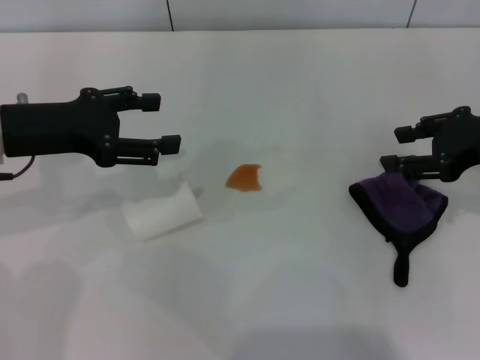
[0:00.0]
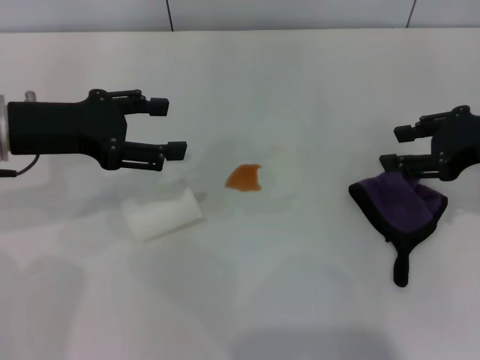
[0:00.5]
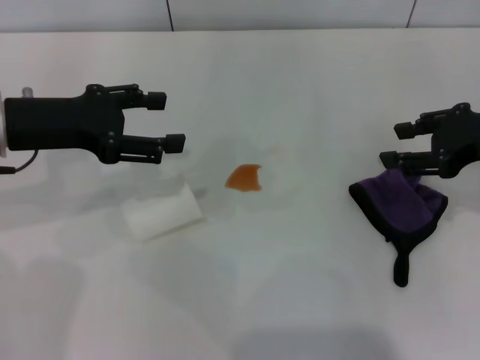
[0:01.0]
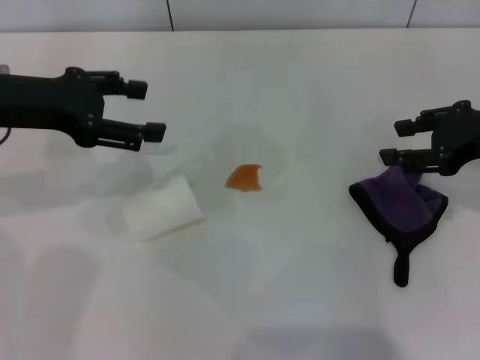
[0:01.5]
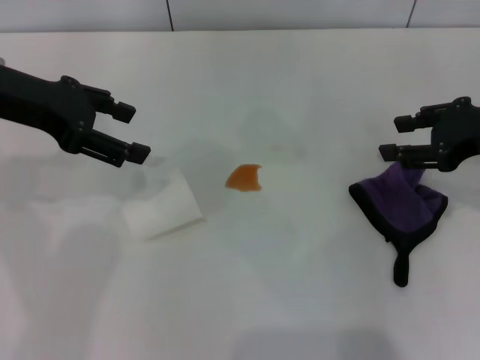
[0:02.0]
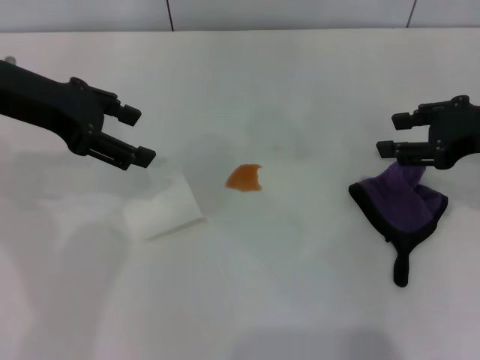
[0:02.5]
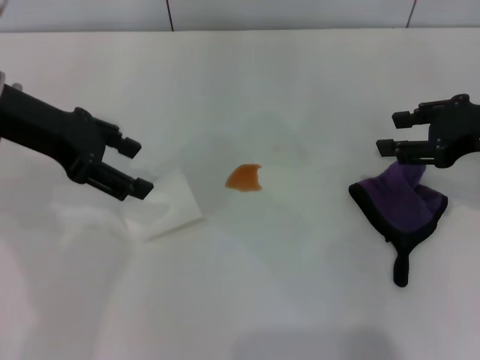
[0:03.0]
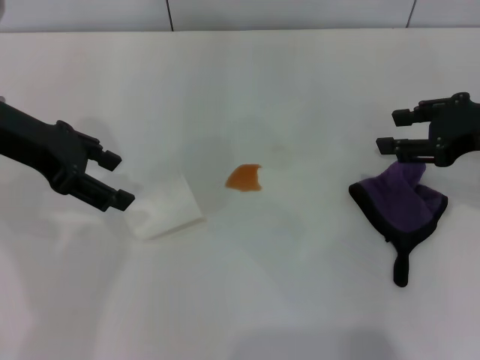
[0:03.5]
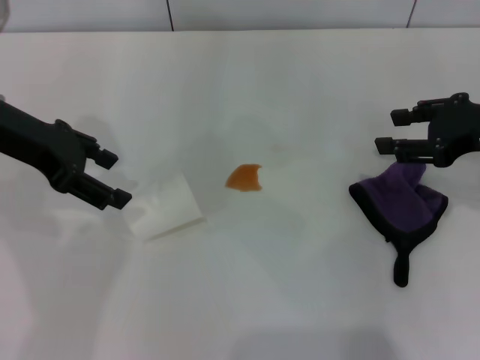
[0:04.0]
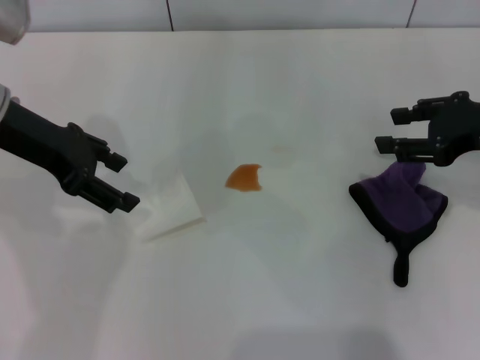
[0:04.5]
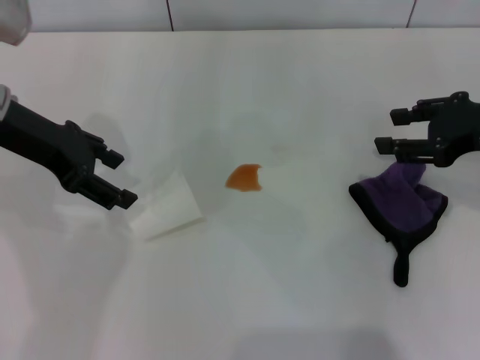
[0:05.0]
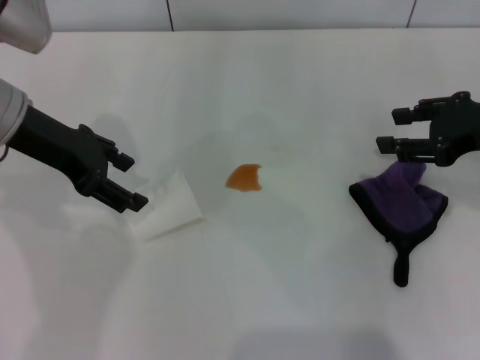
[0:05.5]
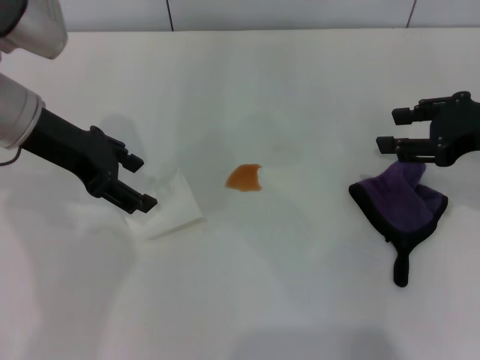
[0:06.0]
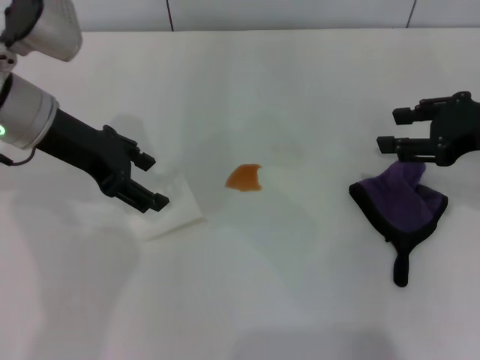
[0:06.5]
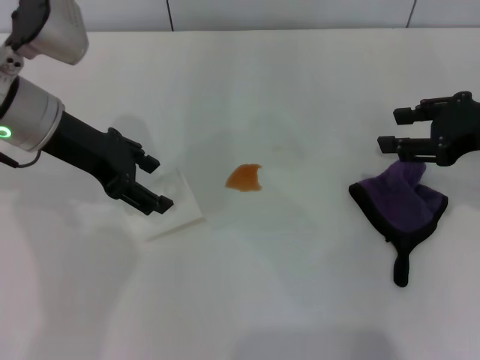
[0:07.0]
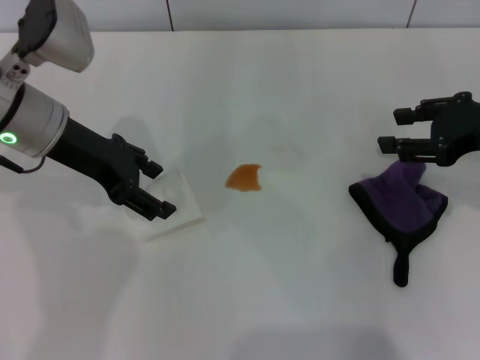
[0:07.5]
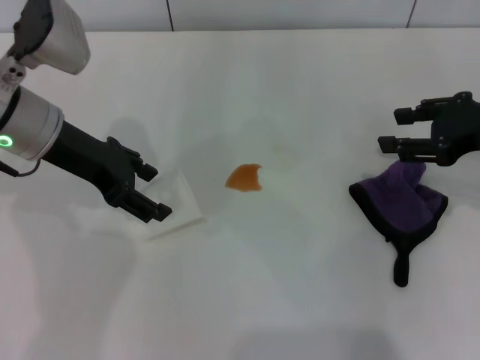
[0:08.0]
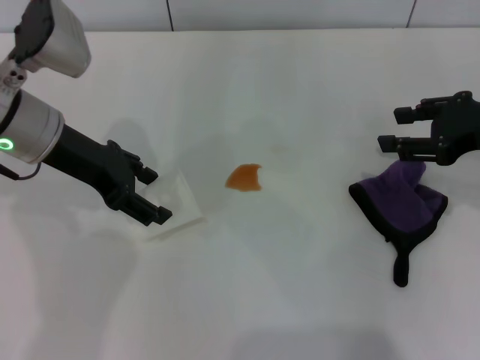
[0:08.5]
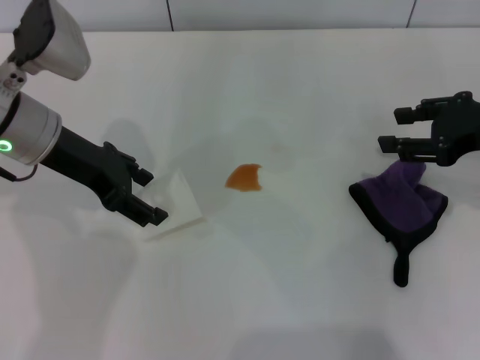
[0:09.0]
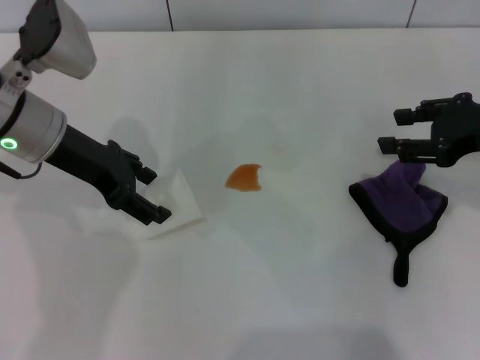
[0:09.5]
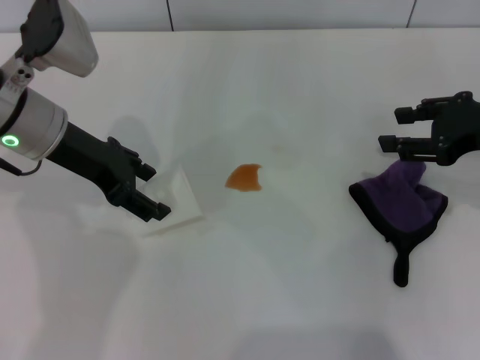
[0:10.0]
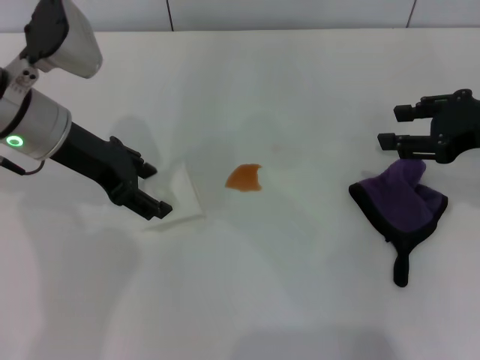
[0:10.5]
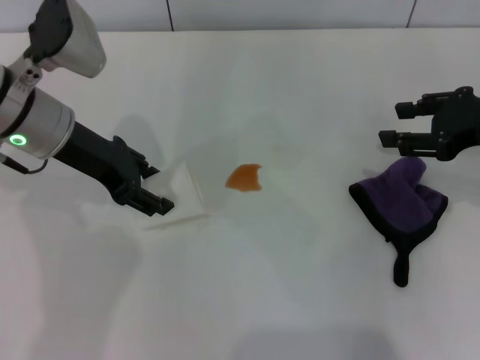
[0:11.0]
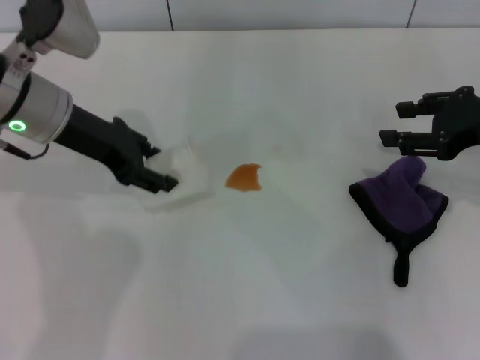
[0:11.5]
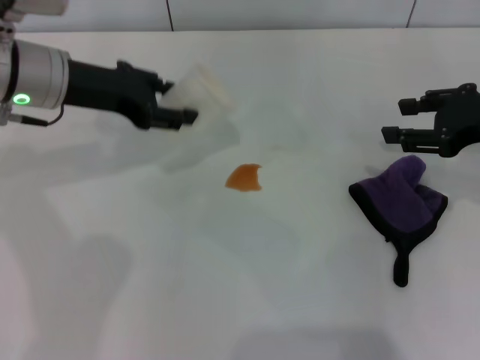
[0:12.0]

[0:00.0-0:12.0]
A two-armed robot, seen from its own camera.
Step, 0:00.0 to 0:10.5: Grasp the paper cup with the left gripper.
0:00.0 to 0:02.0: The left gripper goes approximately 5 cm upward.
0:02.0 to 0:06.0: There are only small adjustments of the grippers.
0:06.0 to 0:08.0: The grippers move only a little.
0:08.0 to 0:10.0: Both grippers stay about where they are.
0:10.0 to 0:12.0: The left gripper closes up.

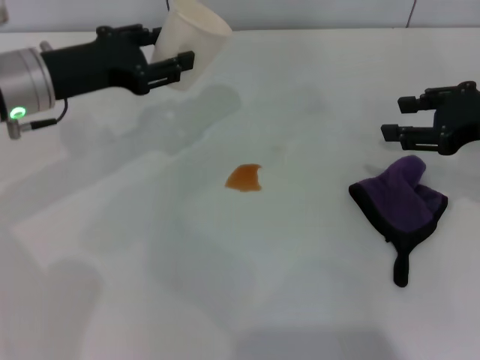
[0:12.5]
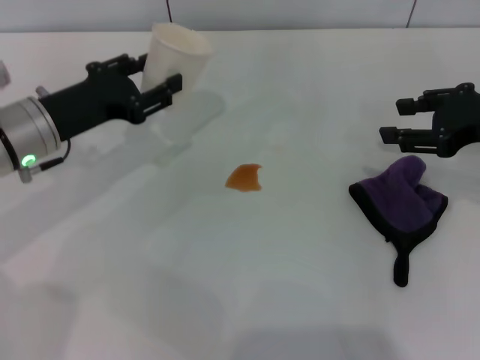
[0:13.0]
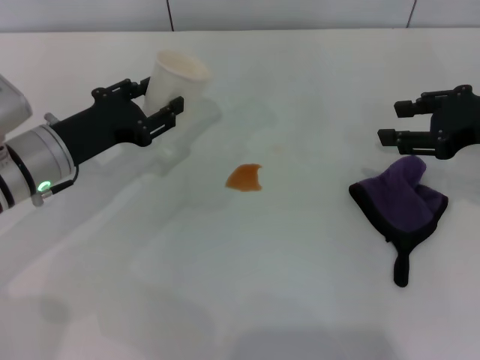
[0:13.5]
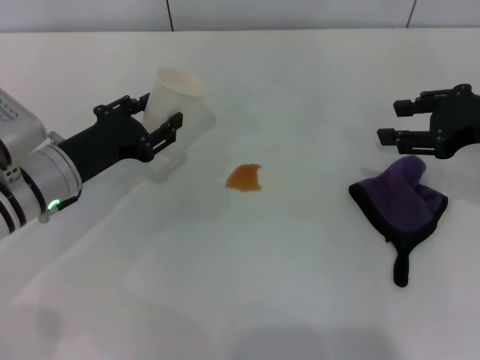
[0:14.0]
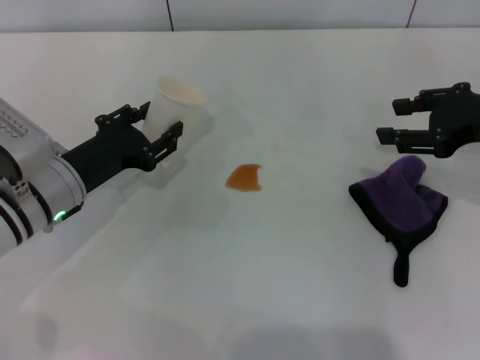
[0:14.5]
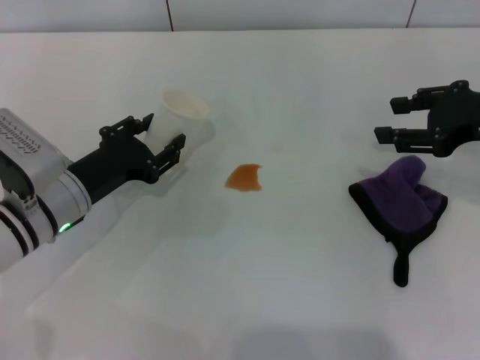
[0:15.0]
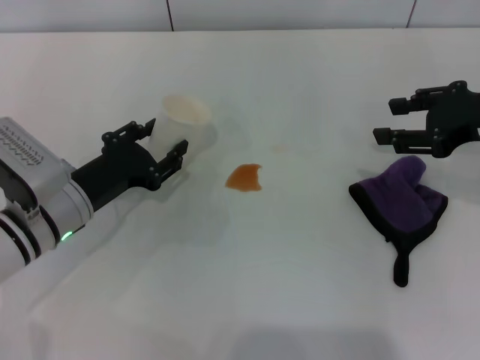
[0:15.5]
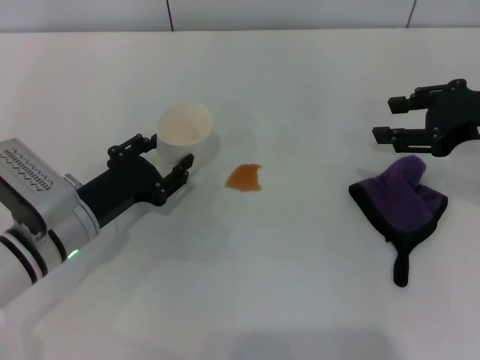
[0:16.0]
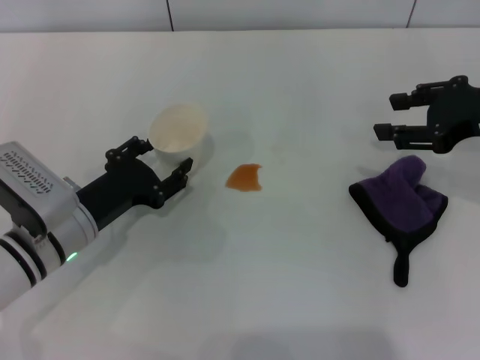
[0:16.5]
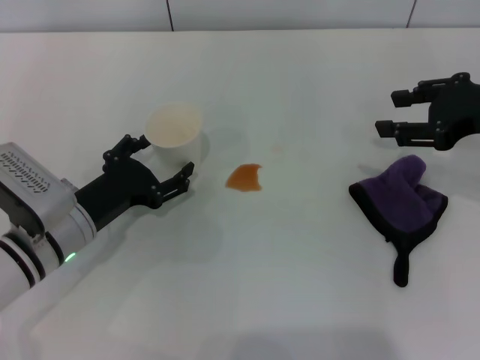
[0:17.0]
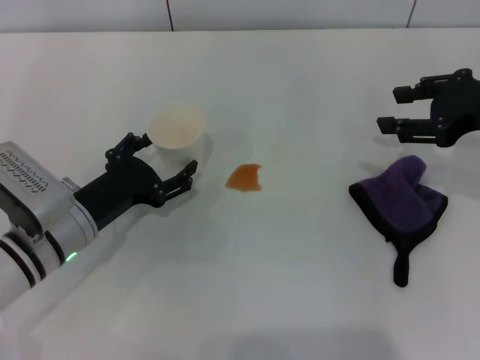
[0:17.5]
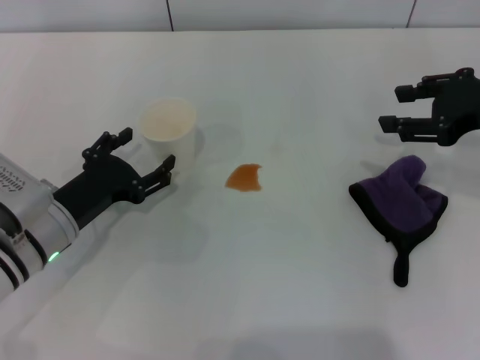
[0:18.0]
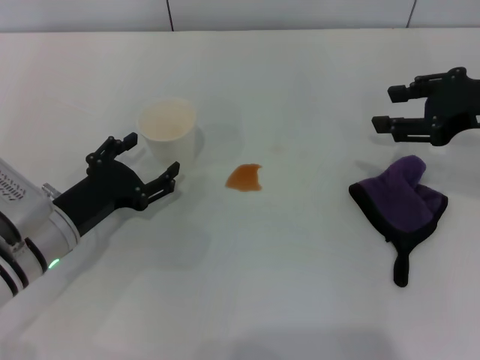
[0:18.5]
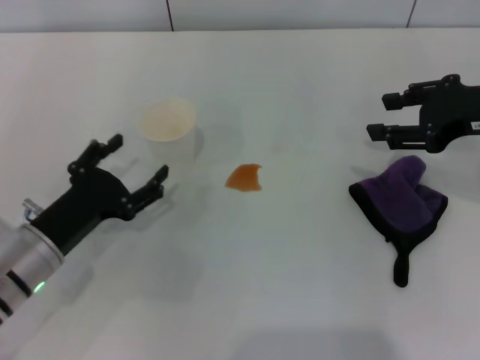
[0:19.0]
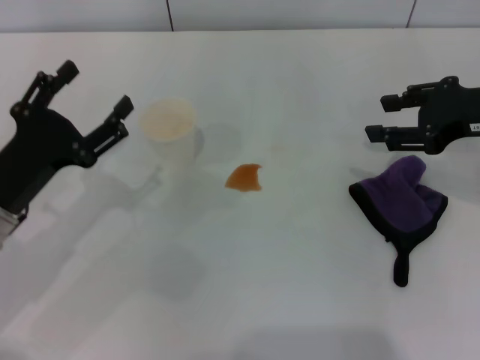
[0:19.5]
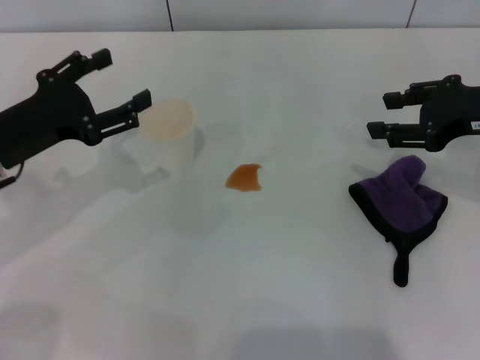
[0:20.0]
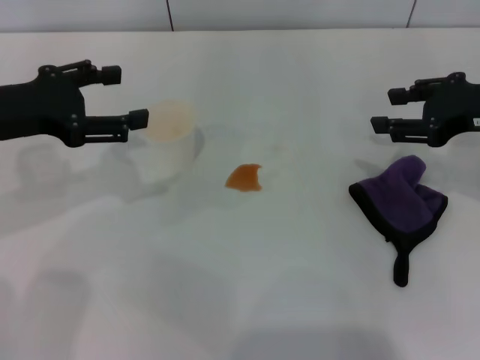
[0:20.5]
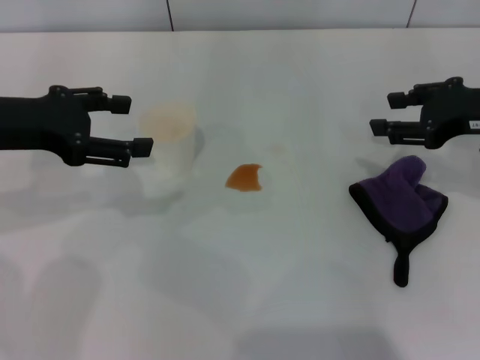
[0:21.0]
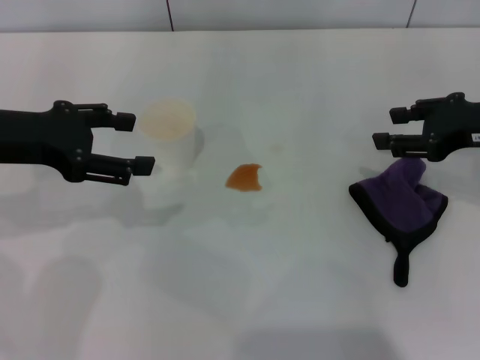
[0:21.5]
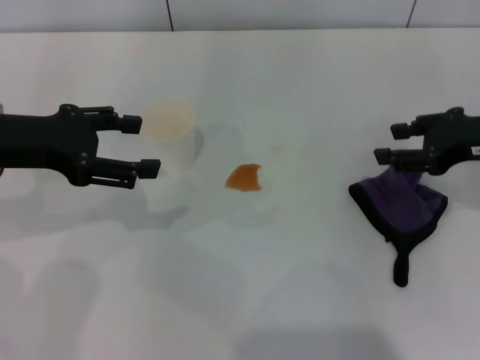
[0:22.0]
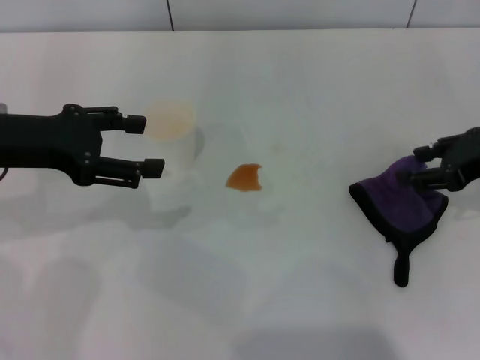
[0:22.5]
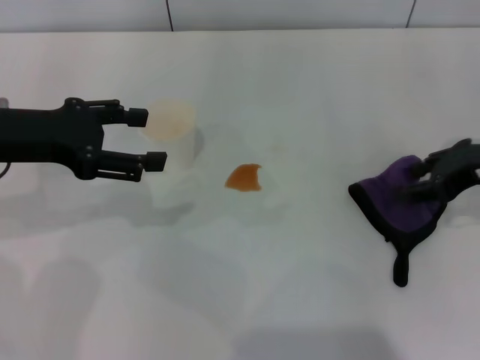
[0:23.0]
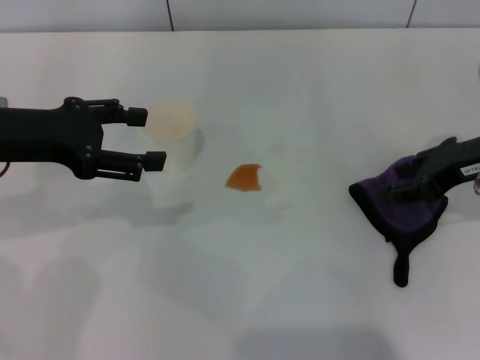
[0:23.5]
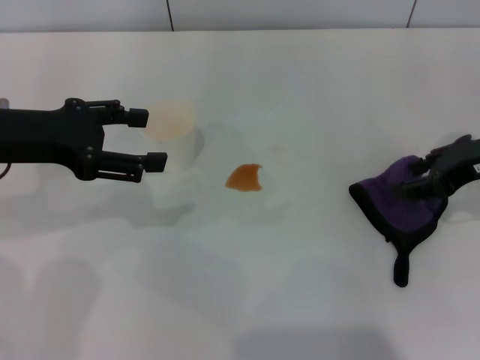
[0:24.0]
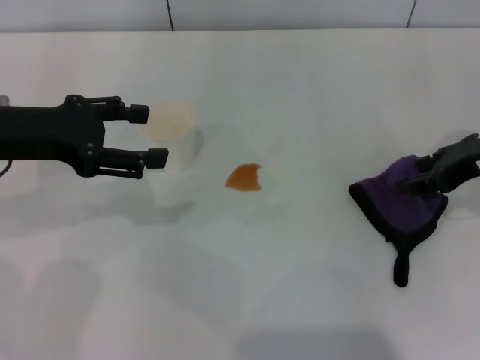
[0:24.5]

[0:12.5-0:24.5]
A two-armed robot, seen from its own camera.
Step, 0:12.5 to 0:18.5: Stand the paper cup upright with the left gripper.
0:12.5 to 0:14.5: The left gripper heads downward and backward, covering about 10 cm.
0:14.5 to 0:16.5: The grippers move only a little.
0:16.5 to 0:18.5: The left gripper opens up.
0:18.5 to 0:20.5: The left gripper heads upward, covering some 15 cm.
0:20.5 to 0:22.5: There are only small adjustments of the grippers.
0:22.5 to 0:24.5: The grippers move only a little.

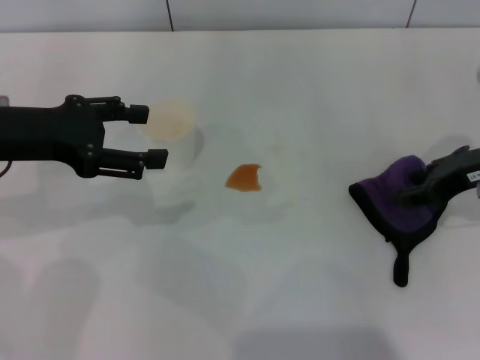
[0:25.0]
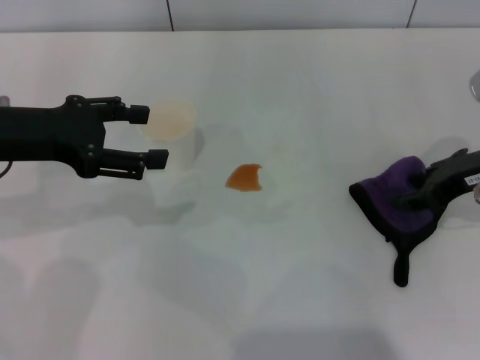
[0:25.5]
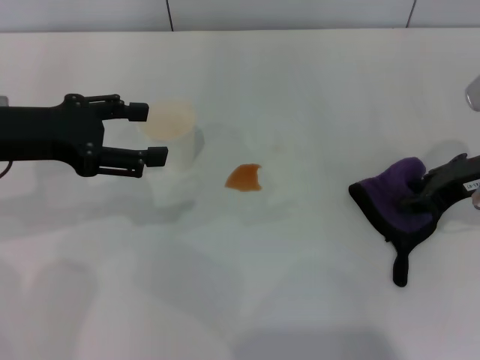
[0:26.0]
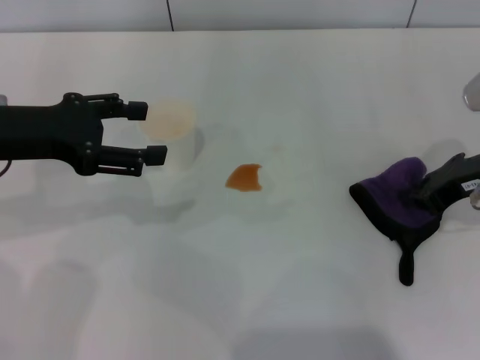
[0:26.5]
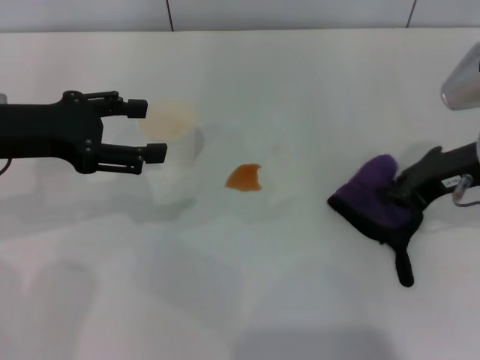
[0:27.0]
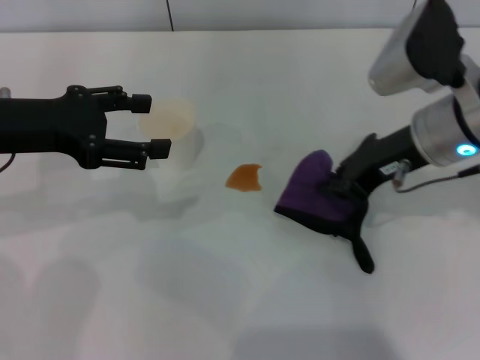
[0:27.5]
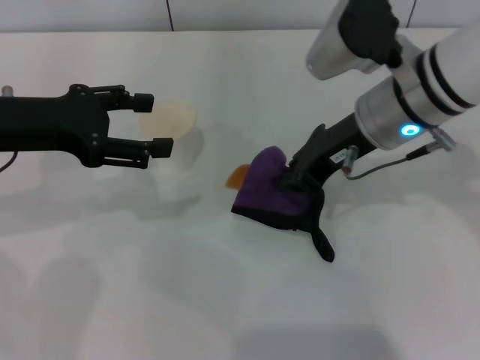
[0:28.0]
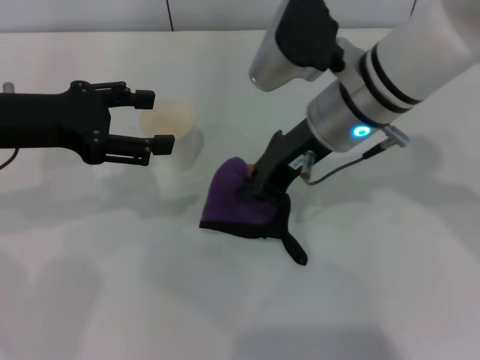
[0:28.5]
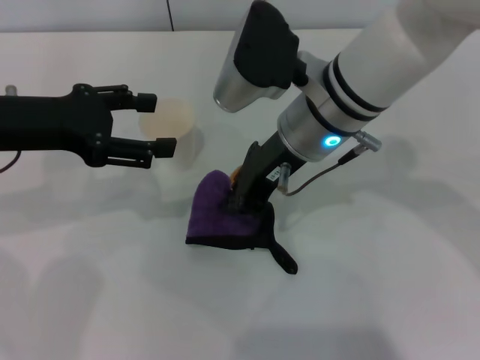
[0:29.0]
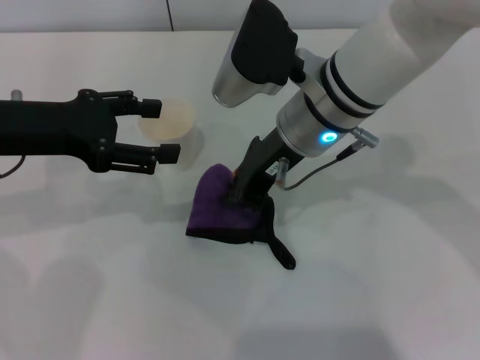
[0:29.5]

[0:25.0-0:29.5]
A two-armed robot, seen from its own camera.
0:25.0 to 0:27.0: The right gripper closes up.
0:27.0 to 0:29.5: The right gripper is displaced to the left by about 20 cm.
